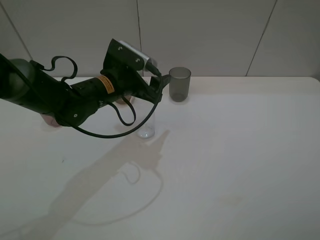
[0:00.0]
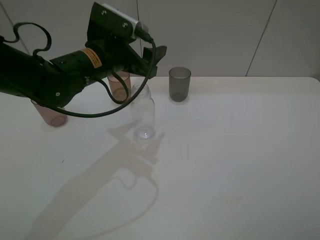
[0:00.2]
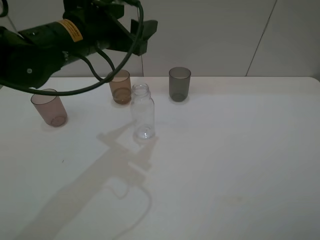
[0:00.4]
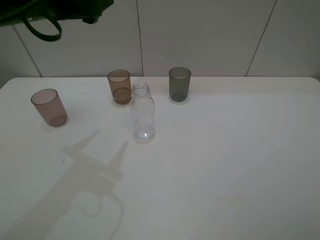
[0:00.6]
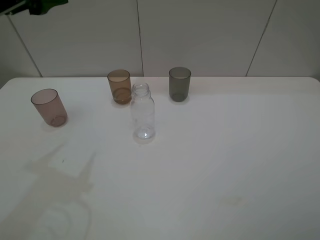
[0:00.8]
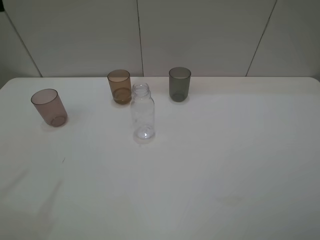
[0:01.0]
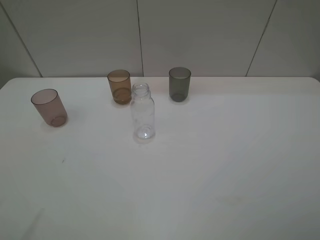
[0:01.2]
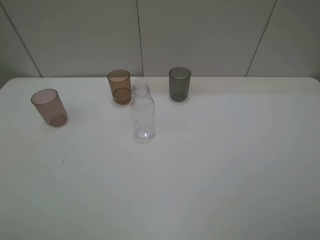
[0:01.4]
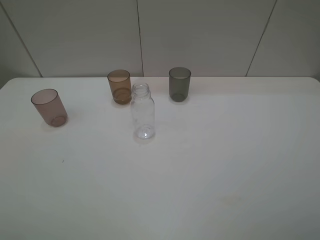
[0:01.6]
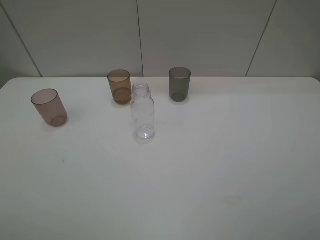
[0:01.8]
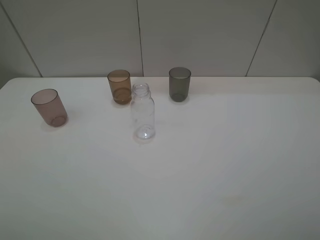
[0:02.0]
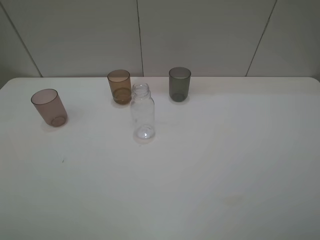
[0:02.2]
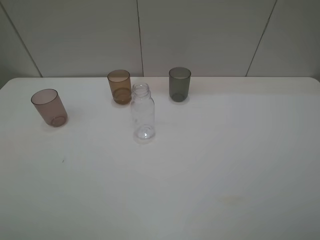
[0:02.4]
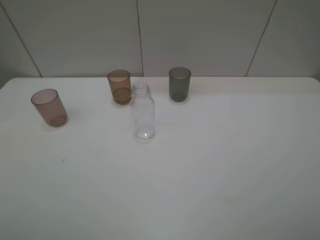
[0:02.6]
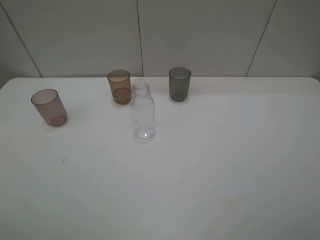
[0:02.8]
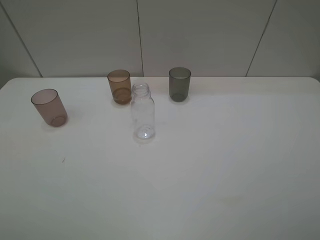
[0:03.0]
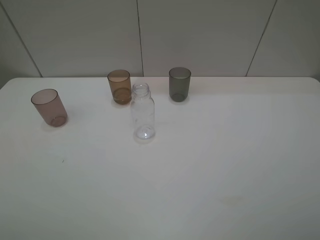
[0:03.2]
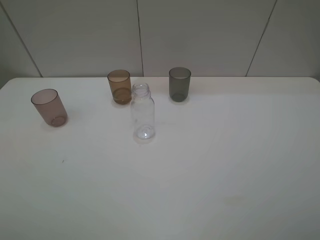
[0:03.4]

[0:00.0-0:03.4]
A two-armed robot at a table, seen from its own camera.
Task of the whole recording: pick up the bottle filled with water and pour water into the middle cup of the three cups.
0:00.0 to 0:01.6: The left gripper moves backward, upward and to the left, roughly 40 cm.
